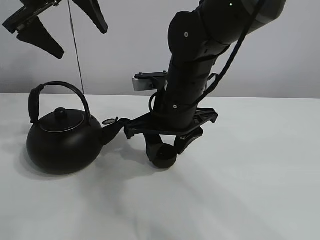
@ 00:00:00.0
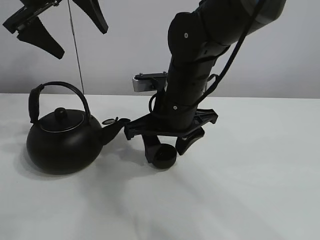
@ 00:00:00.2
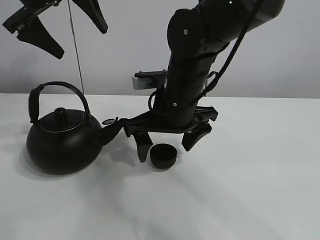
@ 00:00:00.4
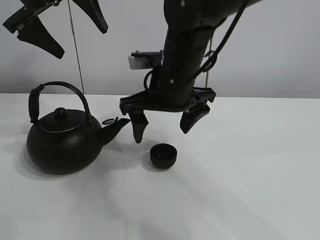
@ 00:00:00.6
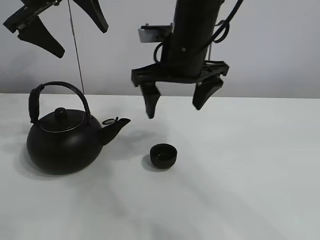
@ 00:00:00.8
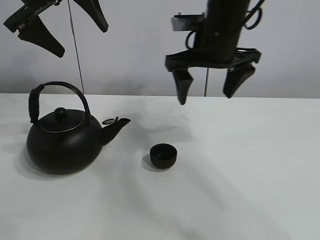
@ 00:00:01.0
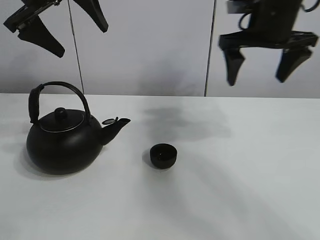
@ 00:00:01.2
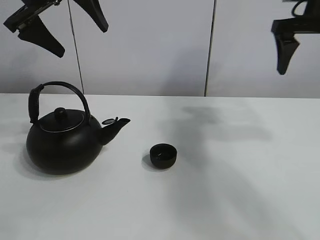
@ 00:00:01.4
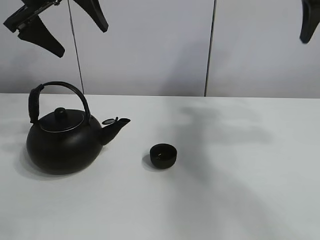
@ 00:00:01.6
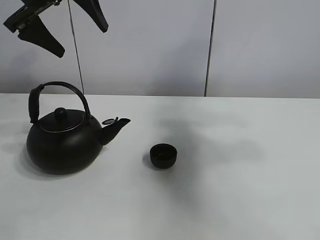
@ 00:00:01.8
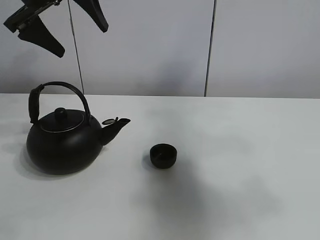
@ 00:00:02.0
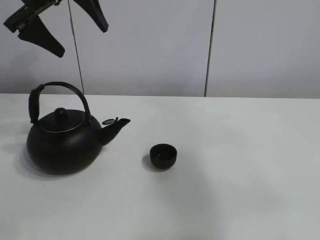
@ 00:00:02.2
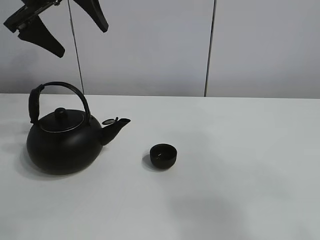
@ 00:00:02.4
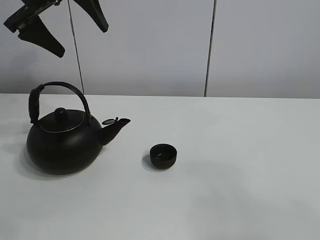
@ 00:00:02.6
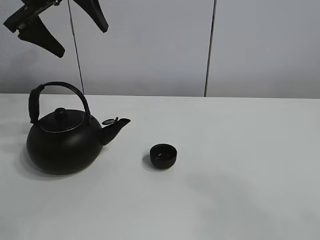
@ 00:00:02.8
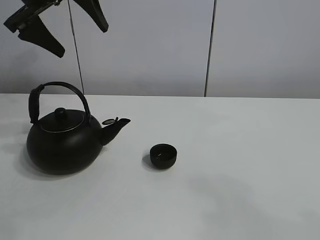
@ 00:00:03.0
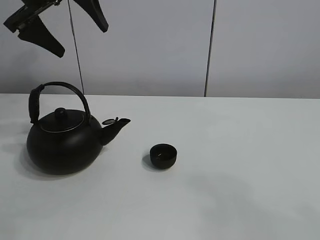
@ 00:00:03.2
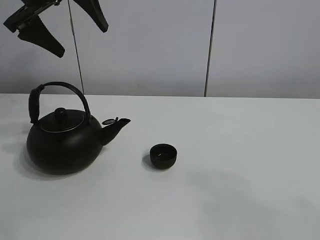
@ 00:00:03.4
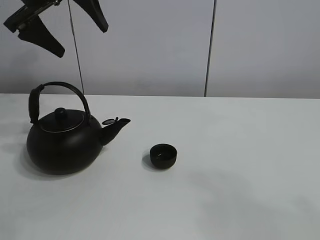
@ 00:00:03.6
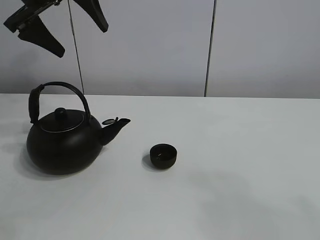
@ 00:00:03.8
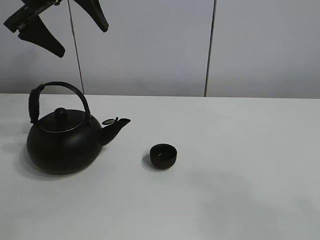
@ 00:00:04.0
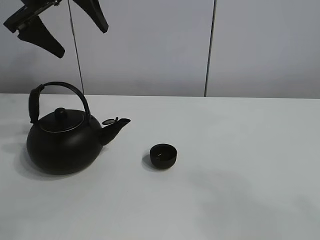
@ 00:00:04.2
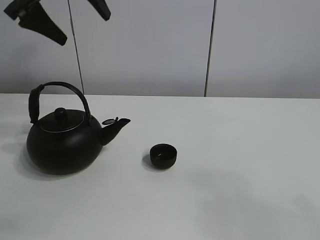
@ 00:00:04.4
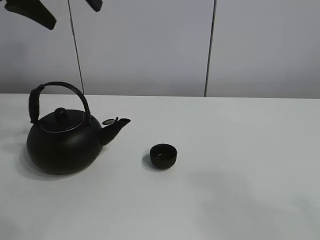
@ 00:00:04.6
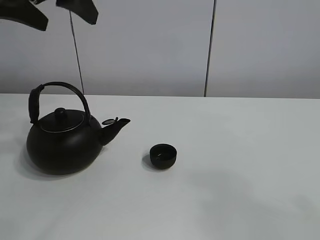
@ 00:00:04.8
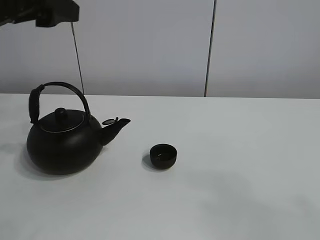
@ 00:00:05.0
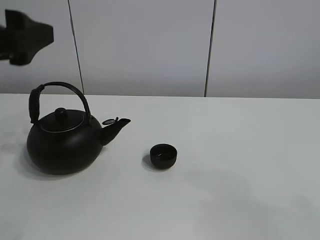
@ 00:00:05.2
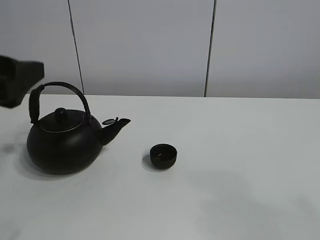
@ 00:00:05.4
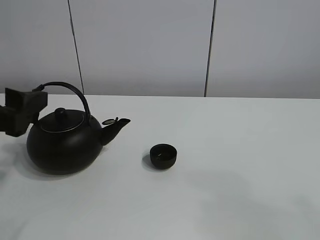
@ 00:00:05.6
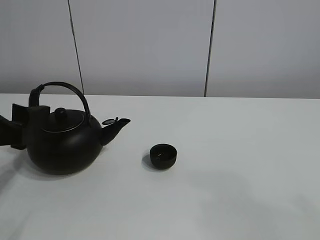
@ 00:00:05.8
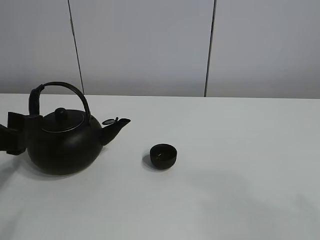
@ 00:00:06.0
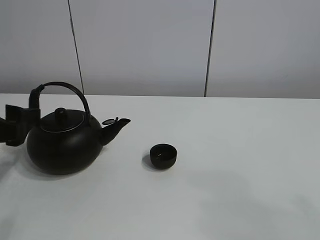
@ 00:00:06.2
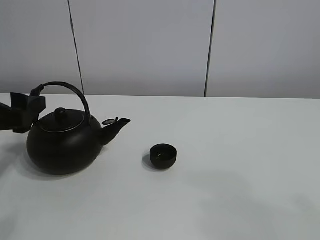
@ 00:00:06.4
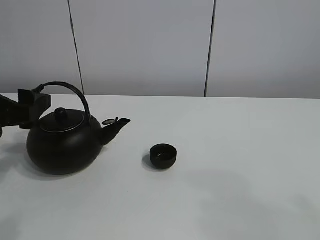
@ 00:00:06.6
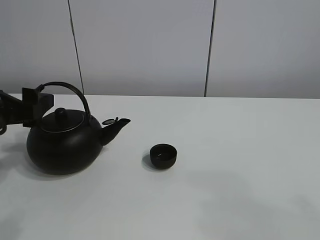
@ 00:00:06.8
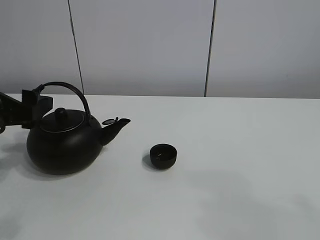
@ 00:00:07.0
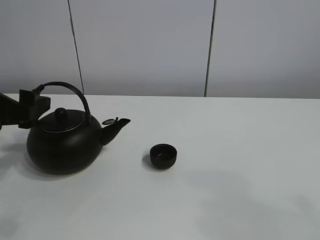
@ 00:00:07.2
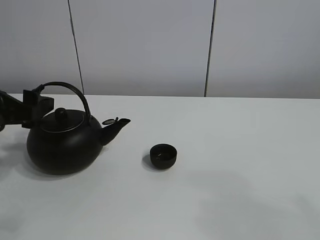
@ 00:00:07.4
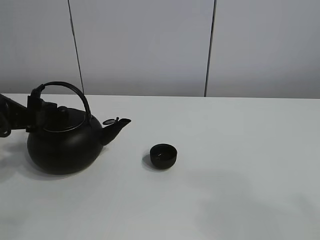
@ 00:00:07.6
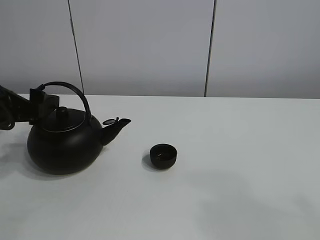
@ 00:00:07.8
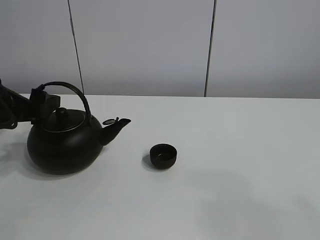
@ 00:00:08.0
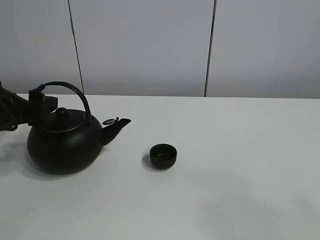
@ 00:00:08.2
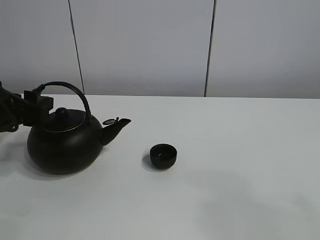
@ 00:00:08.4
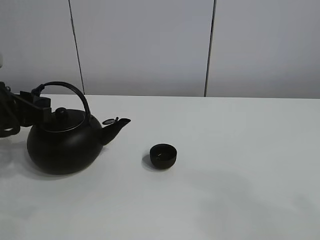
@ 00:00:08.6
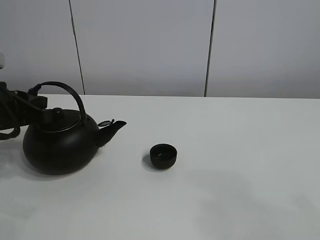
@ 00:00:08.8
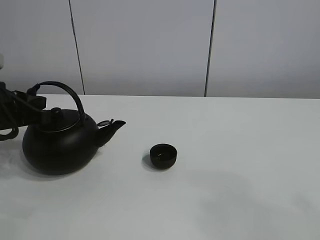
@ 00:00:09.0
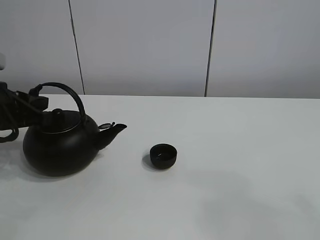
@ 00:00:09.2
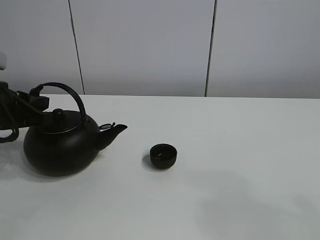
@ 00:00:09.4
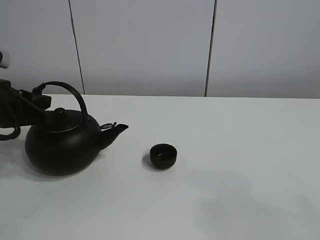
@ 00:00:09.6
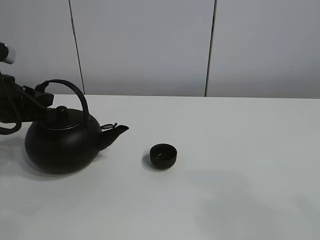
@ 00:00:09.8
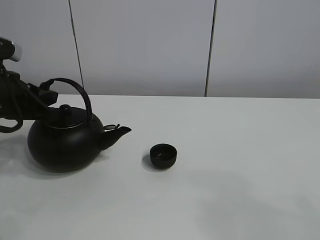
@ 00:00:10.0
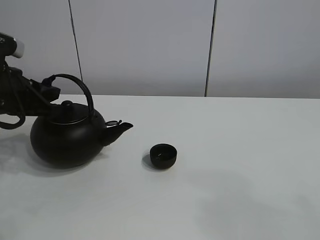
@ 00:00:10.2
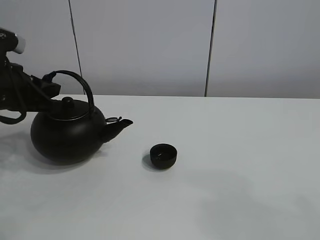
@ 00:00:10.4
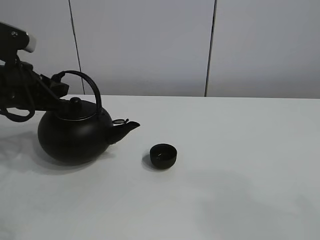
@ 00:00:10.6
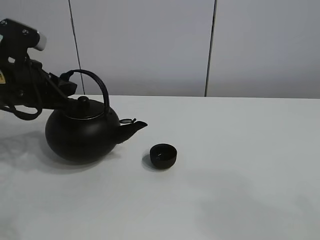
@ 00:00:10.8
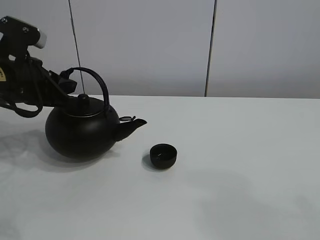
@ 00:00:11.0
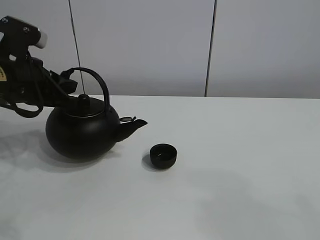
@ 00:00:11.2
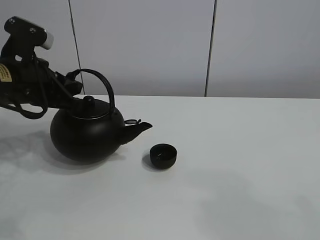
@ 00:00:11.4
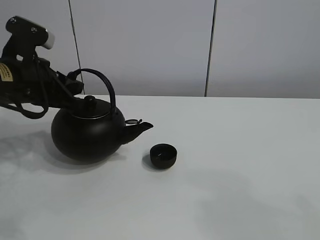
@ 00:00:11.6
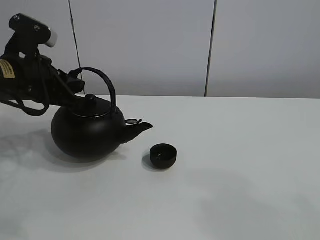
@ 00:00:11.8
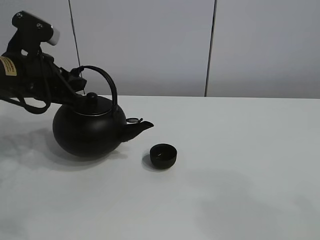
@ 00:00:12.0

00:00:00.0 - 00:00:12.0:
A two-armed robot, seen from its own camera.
Task of the whole recording: pour tea into the teacup.
Step, 00:00:00.4 - 00:00:10.2: Pick up the teapot with the left gripper.
00:00:00.0 - 00:00:01.6: The right gripper heads to the right and upward, covering roughly 35 cm, and opens its fingers.
00:00:01.6 - 00:00:03.0: The right gripper is displaced backward by some 40 cm.
00:00:03.0 - 00:00:04.4: The grippers make only small movements.
00:00:04.4 - 00:00:06.0: The left gripper moves downward and backward, roughly 25 cm.
00:00:06.0 - 00:00:07.6: The left gripper is displaced forward by roughly 5 cm.
00:00:07.6 - 00:00:09.0: The left gripper closes.
00:00:09.0 - 00:00:10.4: The grippers move only a little.
00:00:10.4 - 00:00:12.0: The grippers make only small movements.

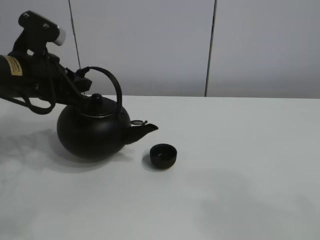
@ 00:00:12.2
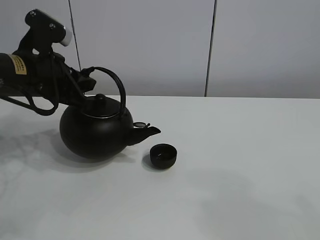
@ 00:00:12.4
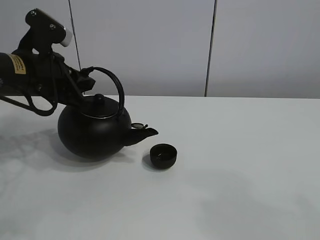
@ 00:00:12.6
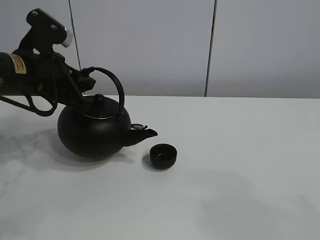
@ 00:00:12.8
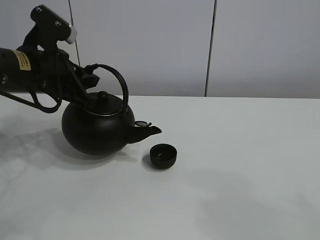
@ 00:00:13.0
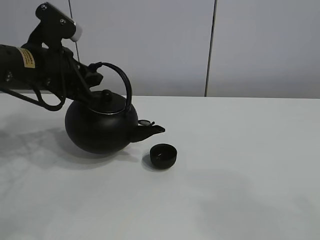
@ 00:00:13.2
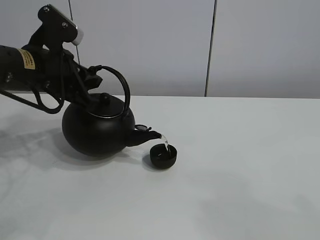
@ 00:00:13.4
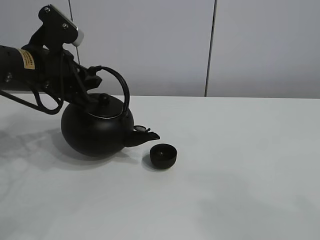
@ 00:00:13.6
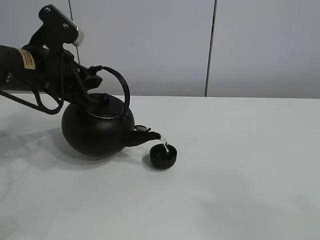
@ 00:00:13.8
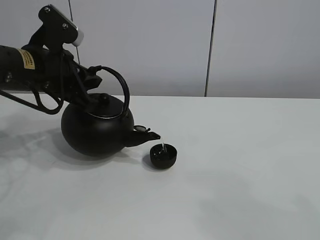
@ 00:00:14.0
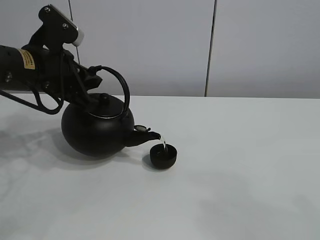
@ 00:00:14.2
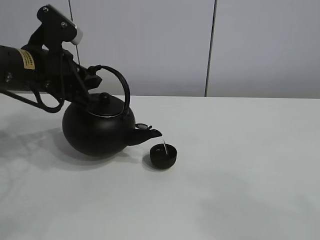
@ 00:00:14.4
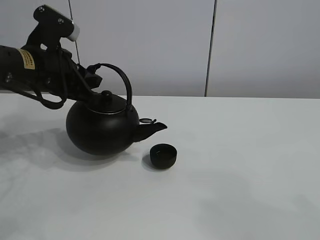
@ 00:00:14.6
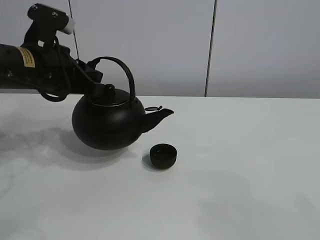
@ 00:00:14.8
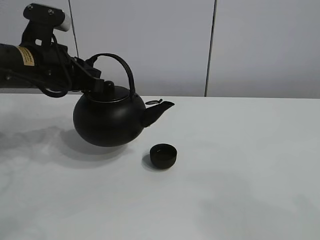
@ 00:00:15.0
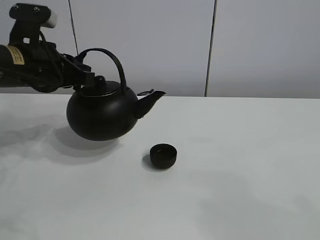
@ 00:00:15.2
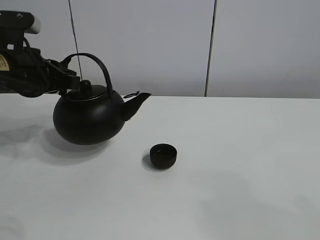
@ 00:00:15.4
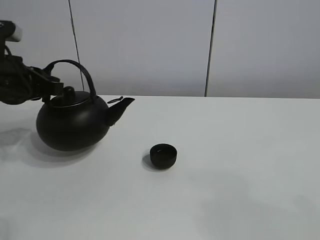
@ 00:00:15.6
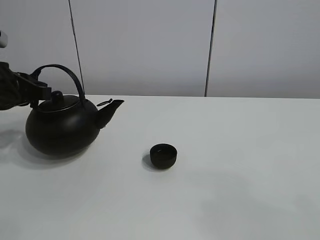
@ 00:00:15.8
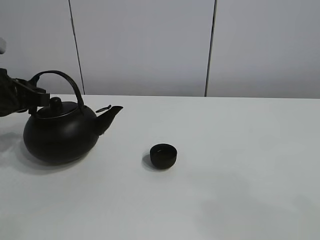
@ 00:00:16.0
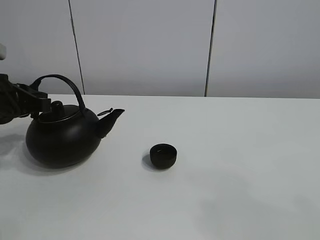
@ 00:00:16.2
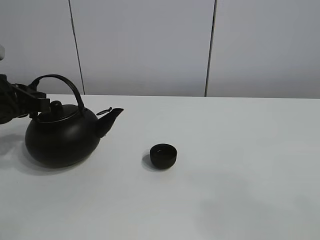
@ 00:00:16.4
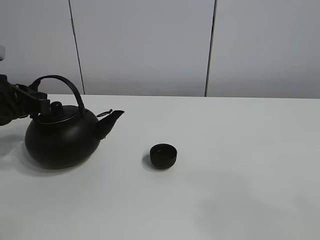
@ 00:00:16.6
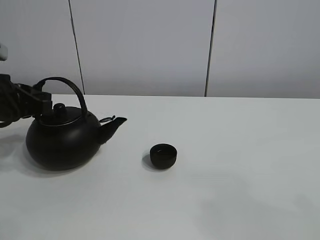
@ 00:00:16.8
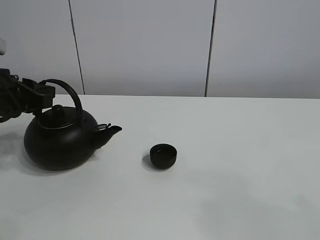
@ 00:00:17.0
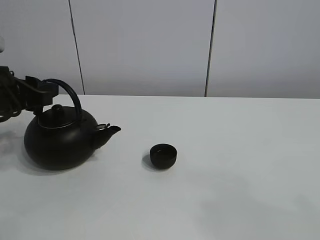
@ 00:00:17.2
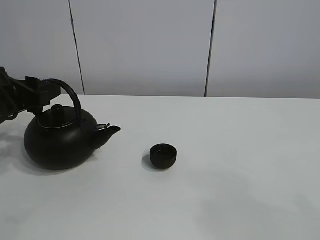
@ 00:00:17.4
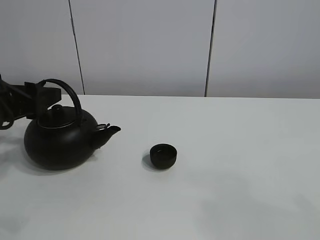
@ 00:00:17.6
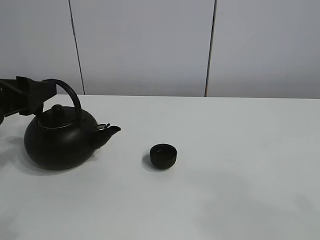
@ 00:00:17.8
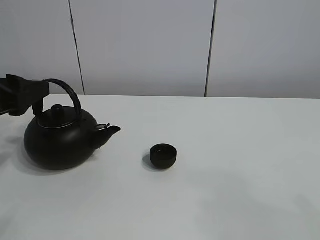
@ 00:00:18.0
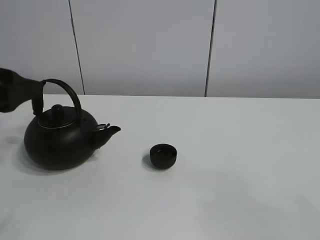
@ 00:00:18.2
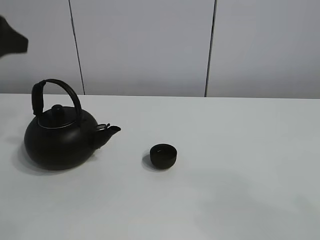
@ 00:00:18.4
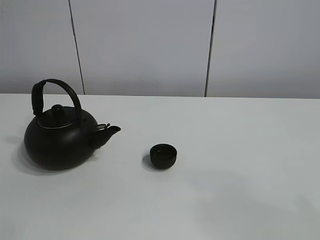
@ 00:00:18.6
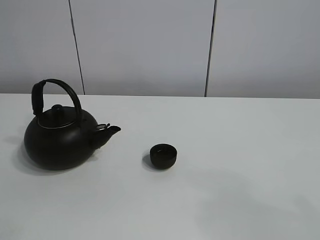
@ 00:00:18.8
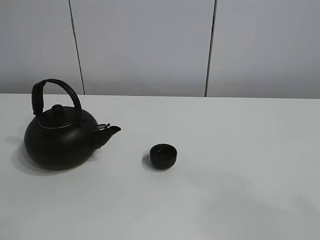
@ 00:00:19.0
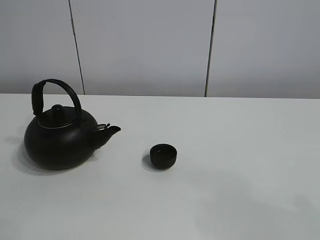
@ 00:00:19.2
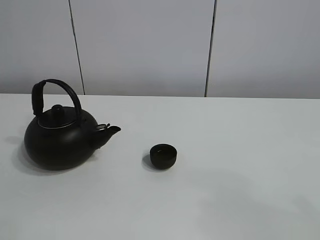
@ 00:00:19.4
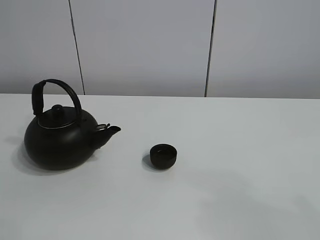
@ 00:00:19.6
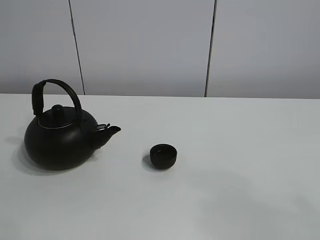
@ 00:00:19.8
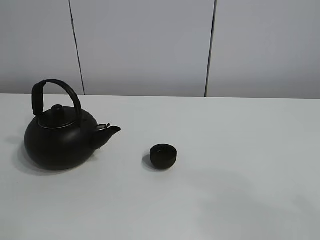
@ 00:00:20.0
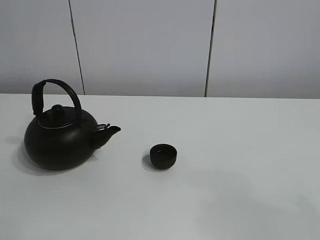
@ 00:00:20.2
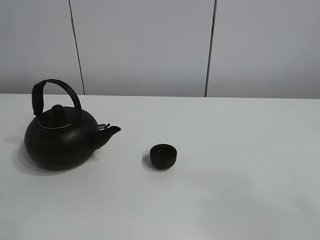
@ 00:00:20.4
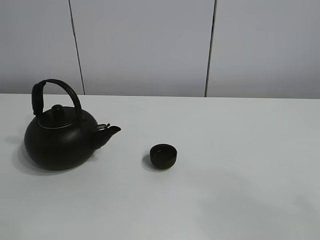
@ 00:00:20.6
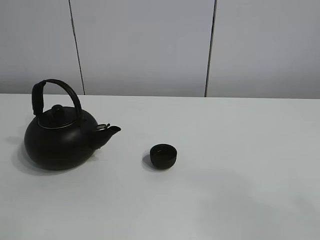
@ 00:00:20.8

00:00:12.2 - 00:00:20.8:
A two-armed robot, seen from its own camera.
Task of the whole recording: pour tea into the teacup.
Step, 00:00:12.2 - 00:00:14.4: Pour tea into the teacup with the left gripper.
00:00:12.2 - 00:00:13.6: The grippers stay close to where they were, moving slightly.
00:00:15.0 - 00:00:16.6: The left gripper heads to the left, covering some 10 cm.
00:00:16.6 - 00:00:18.0: The left gripper moves backward, about 5 cm, and opens.
00:00:18.0 - 00:00:19.4: The left gripper heads upward and backward, covering some 25 cm.
